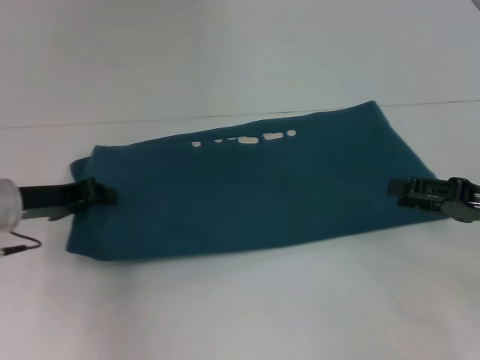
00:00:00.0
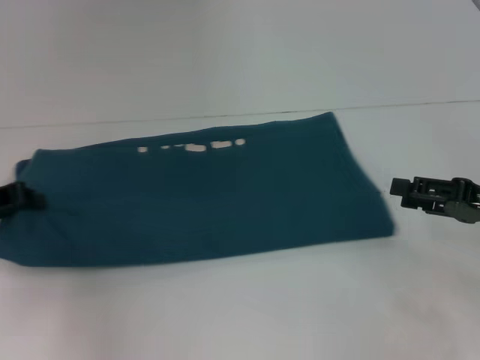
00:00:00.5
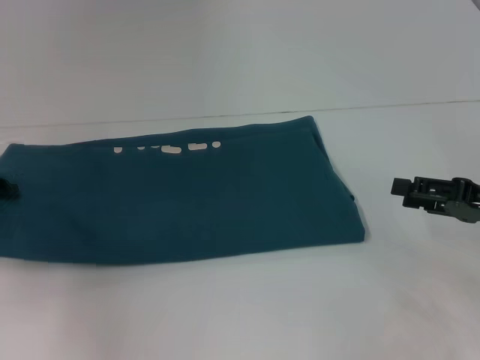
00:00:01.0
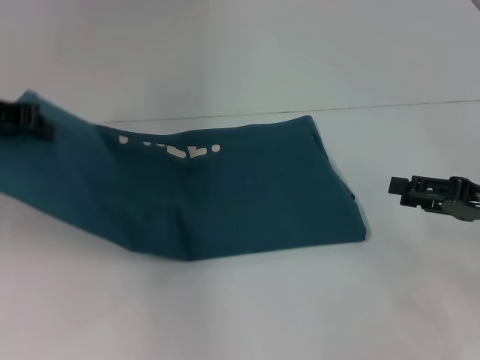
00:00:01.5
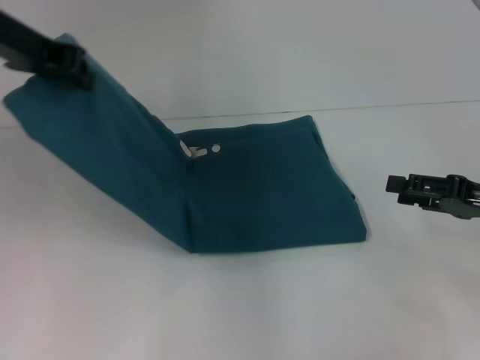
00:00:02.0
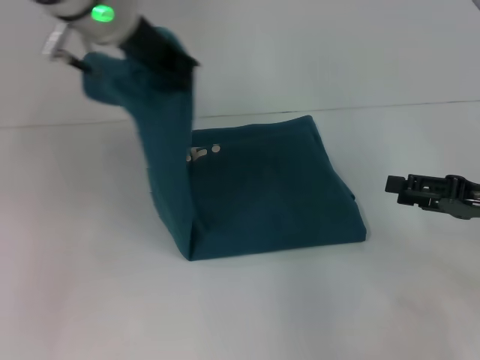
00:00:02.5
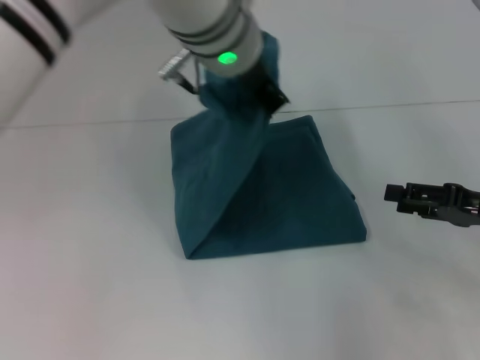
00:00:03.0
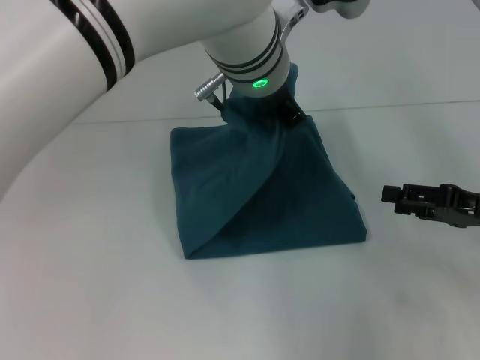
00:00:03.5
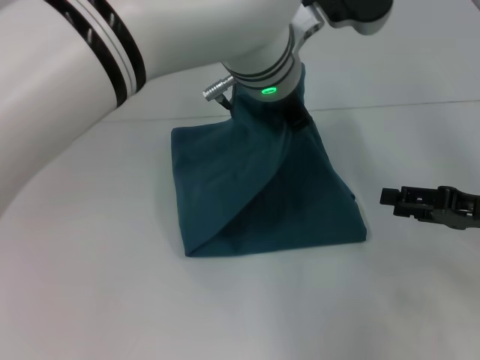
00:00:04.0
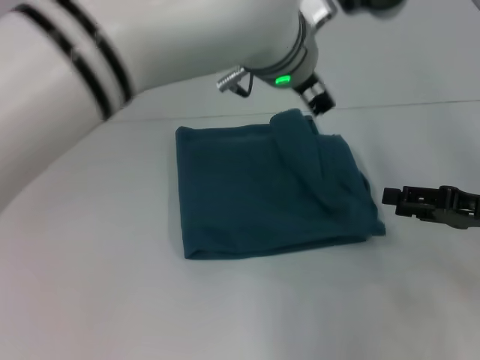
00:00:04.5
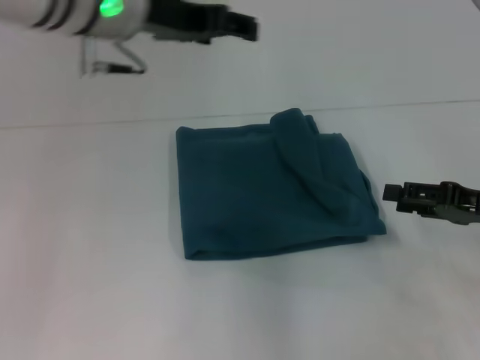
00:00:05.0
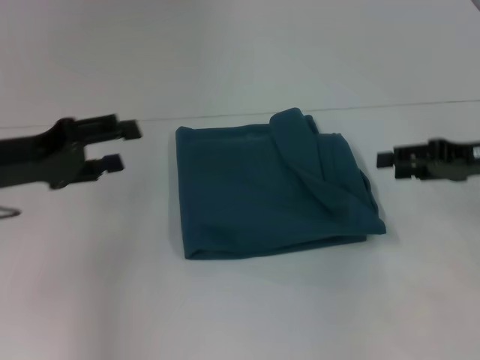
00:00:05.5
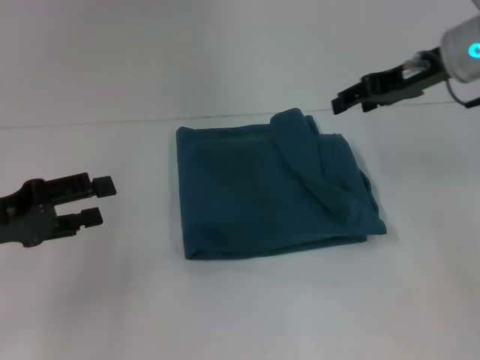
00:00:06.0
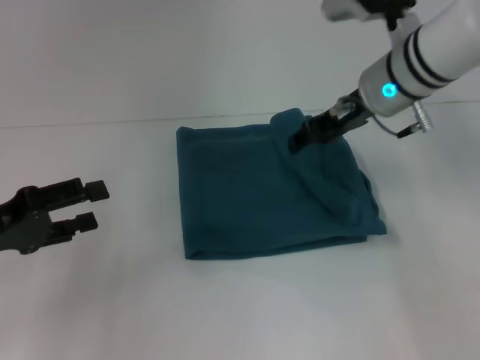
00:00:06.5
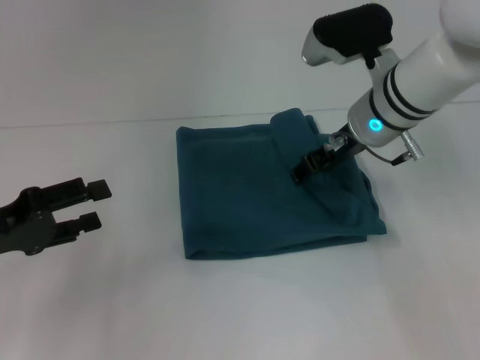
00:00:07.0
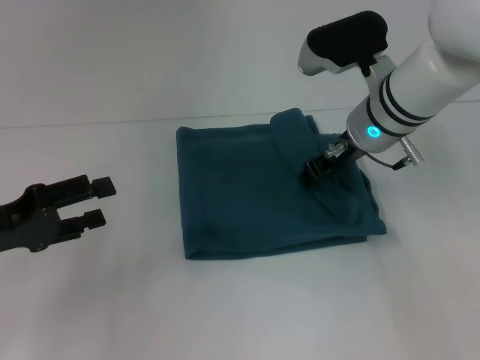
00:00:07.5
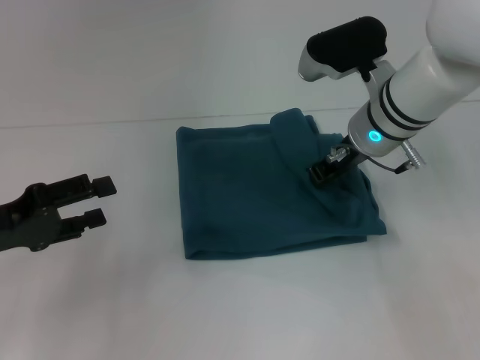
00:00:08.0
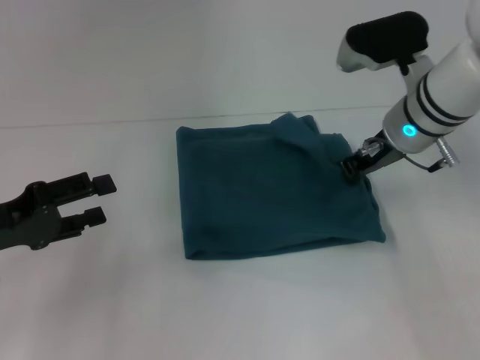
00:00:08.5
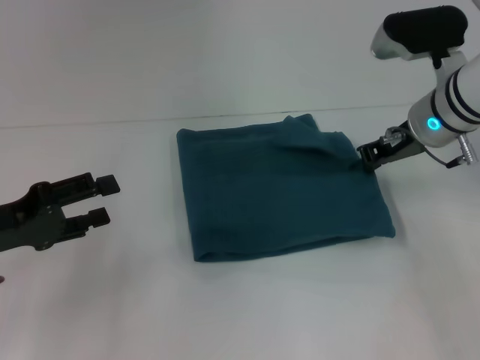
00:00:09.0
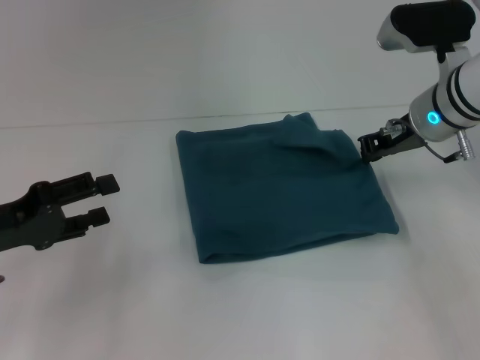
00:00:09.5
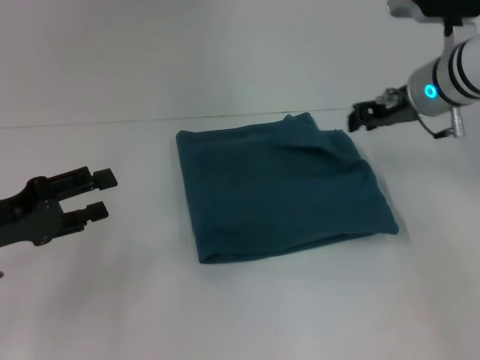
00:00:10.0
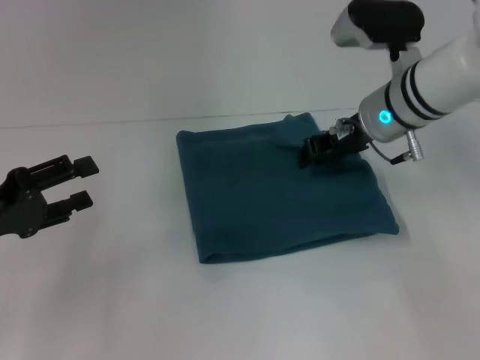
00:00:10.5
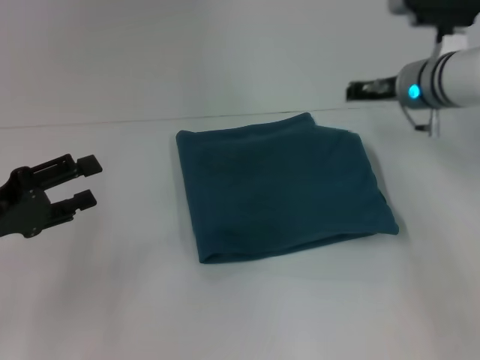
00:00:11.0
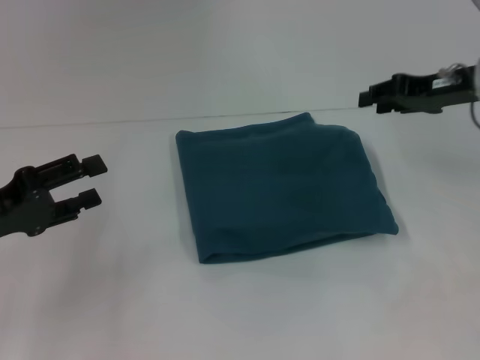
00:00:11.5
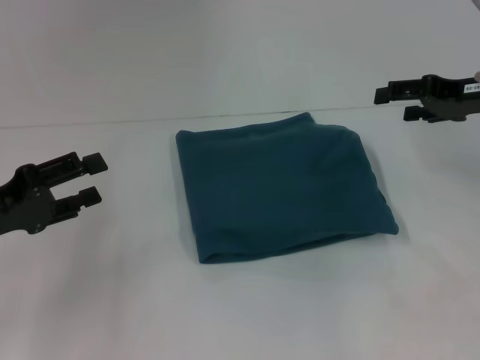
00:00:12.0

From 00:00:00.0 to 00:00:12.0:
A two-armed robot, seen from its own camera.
Step, from 00:00:00.0 to 00:00:04.5: Fold the clothes to the left.
From 00:00:00.0 to 00:00:02.0: The left gripper goes approximately 20 cm upward.
From 00:00:02.0 to 00:00:04.0: The left gripper heads to the right, covering some 25 cm.
From 00:00:04.0 to 00:00:06.0: The left gripper moves to the left, approximately 35 cm, and opens its fingers, while the right gripper goes roughly 20 cm forward, upward and to the left.
From 00:00:06.0 to 00:00:08.0: The right gripper goes roughly 10 cm to the left and downward, and closes up.
From 00:00:08.0 to 00:00:10.0: The right gripper goes some 5 cm to the right.
From 00:00:10.0 to 00:00:12.0: The right gripper is displaced to the right by about 10 cm, and opens its fingers.

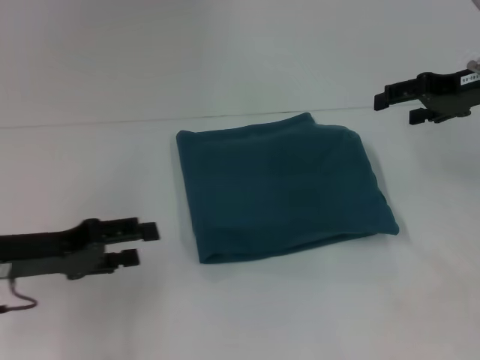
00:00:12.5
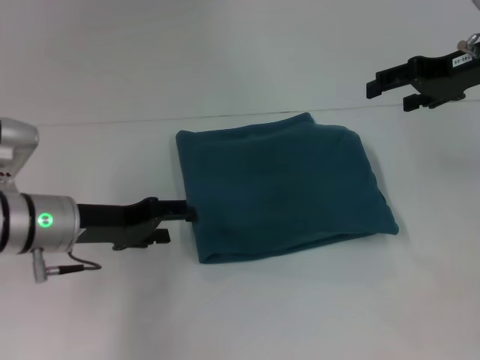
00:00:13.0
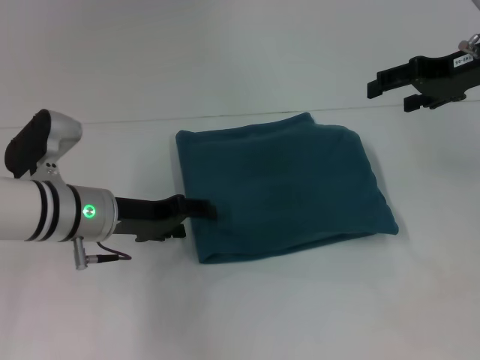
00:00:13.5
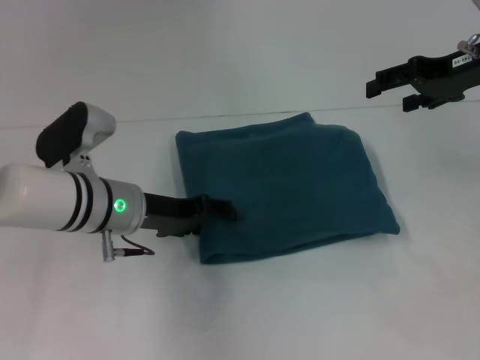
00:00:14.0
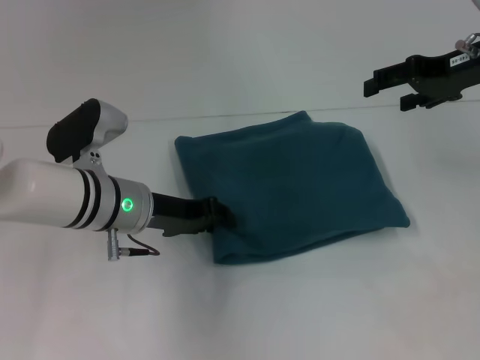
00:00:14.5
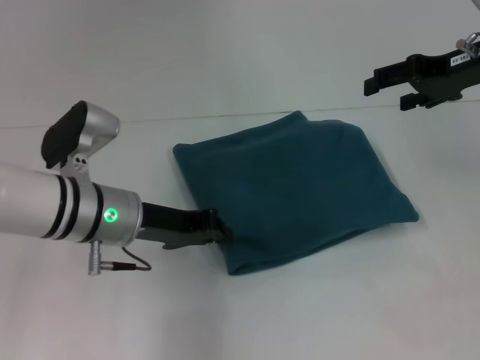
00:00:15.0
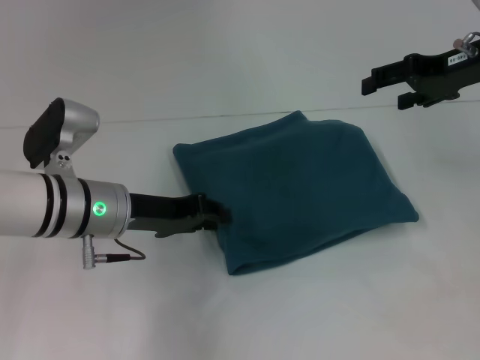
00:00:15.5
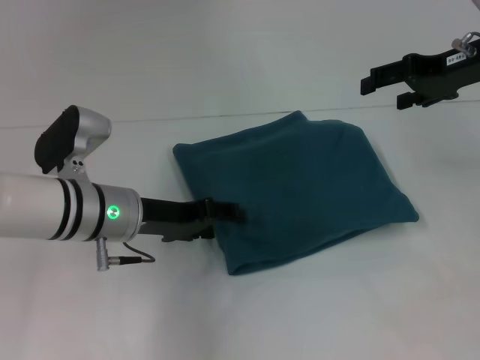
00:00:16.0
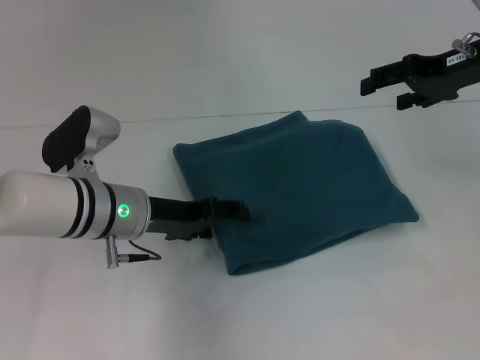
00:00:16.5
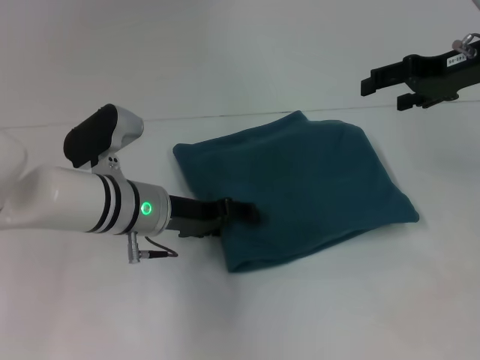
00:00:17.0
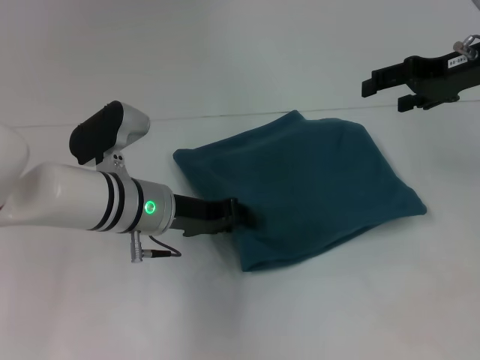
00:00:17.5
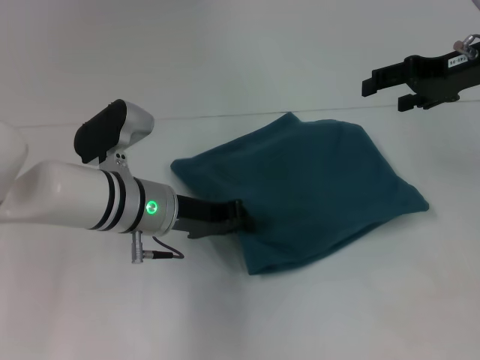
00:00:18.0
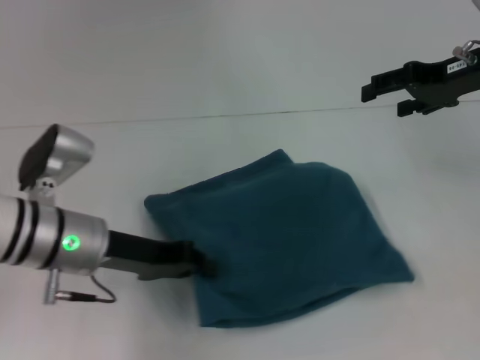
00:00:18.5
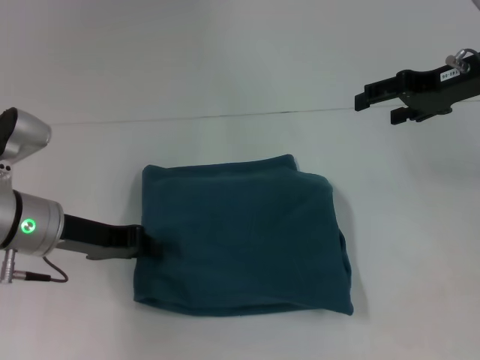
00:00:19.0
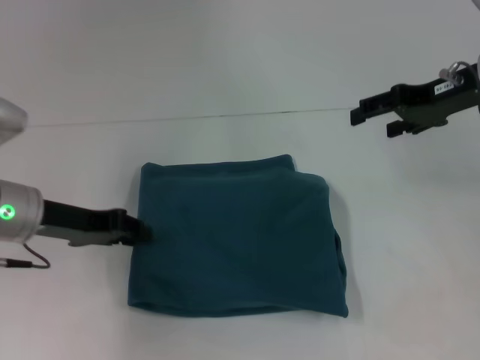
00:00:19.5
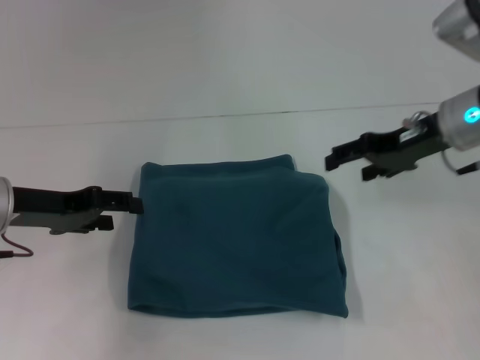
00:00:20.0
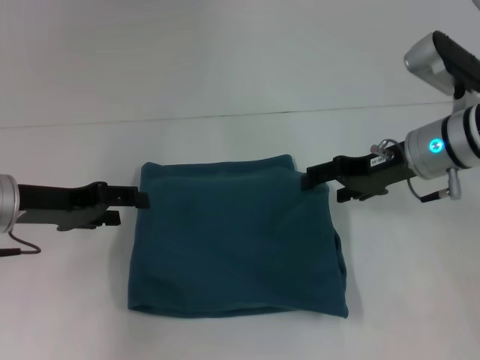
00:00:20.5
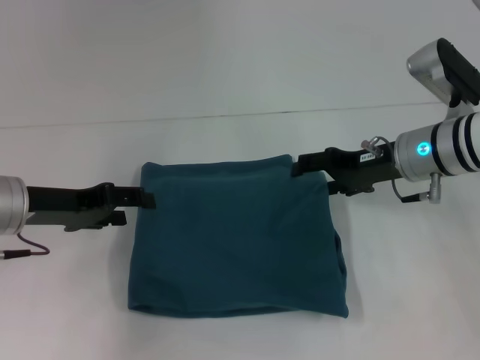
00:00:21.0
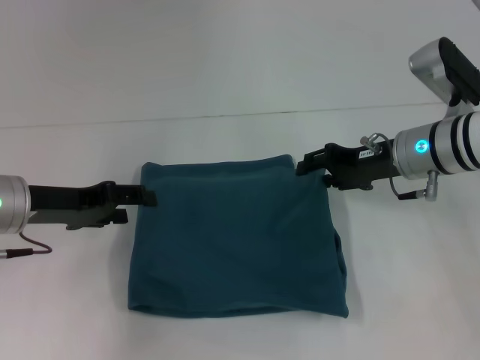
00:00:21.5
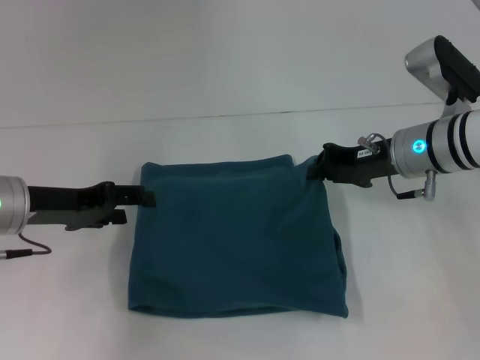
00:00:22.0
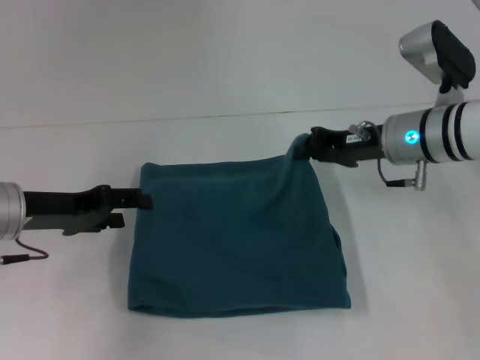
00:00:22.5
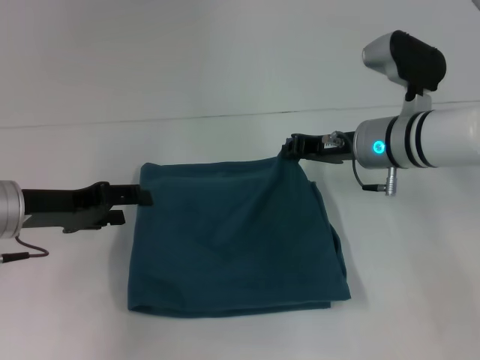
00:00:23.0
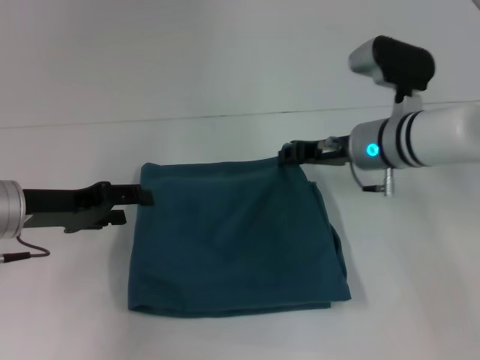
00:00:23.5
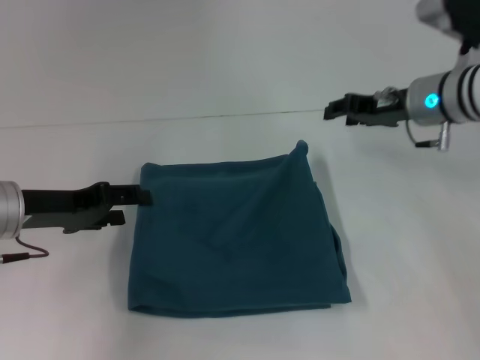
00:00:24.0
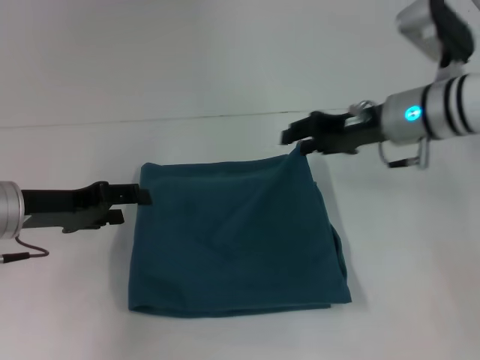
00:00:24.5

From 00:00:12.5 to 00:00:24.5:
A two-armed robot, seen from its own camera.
From 00:00:12.5 to 00:00:14.5: The left gripper moves to the right and forward, roughly 15 cm, and closes up.
From 00:00:14.5 to 00:00:16.5: The left gripper opens its fingers.
From 00:00:16.5 to 00:00:18.5: The left gripper changes place by about 5 cm, and closes its fingers.
From 00:00:18.5 to 00:00:20.5: The right gripper moves downward and to the left, roughly 10 cm. The left gripper travels to the left by about 10 cm, and opens its fingers.
From 00:00:20.5 to 00:00:22.5: The right gripper closes up.
From 00:00:22.5 to 00:00:24.5: The right gripper opens up.

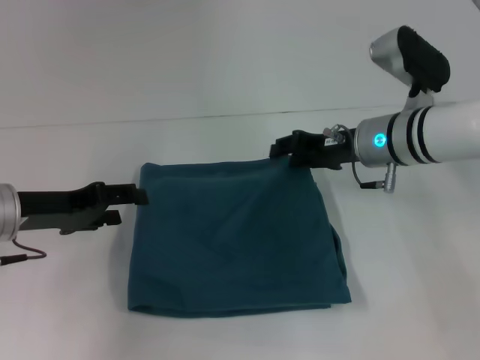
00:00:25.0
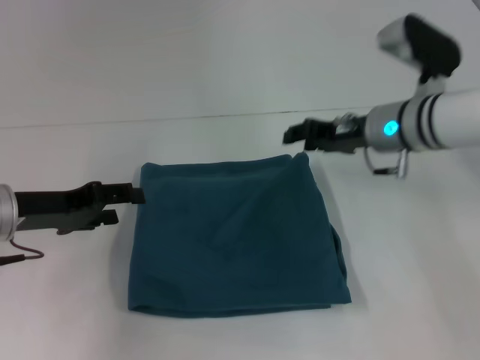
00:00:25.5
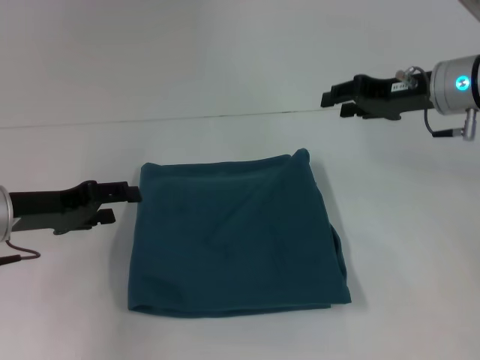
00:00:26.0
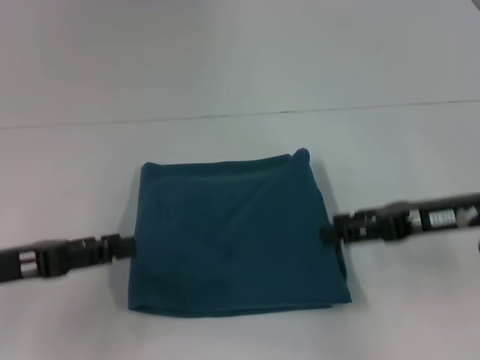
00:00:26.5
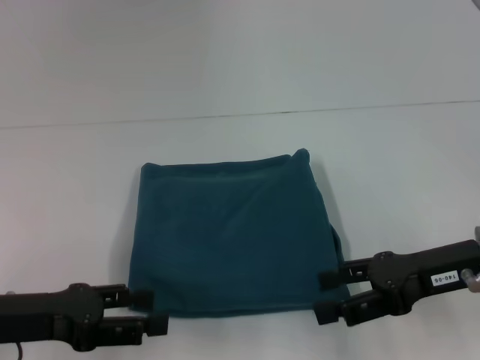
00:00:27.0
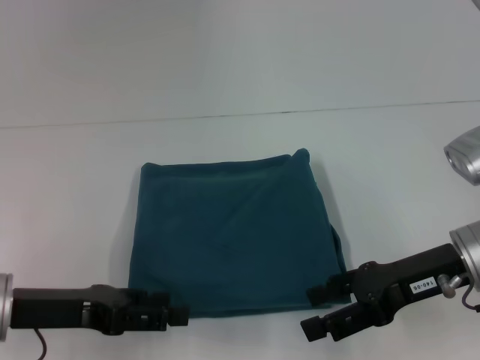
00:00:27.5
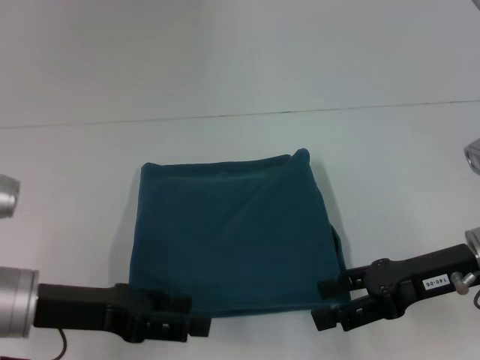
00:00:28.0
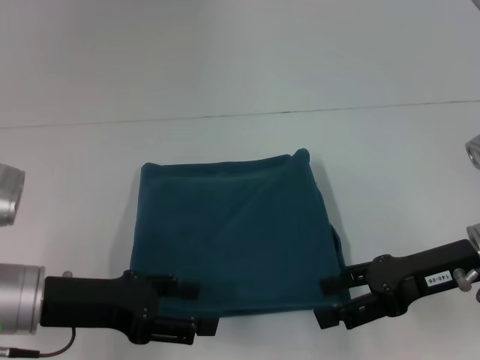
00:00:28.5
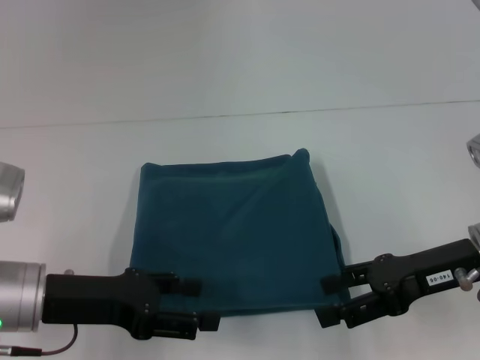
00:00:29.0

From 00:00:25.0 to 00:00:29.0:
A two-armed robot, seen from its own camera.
From 00:00:25.0 to 00:00:27.0: The right gripper moves backward and to the right, approximately 15 cm, and opens up. The left gripper goes some 10 cm backward.
From 00:00:27.0 to 00:00:29.0: The left gripper shifts by about 5 cm.
